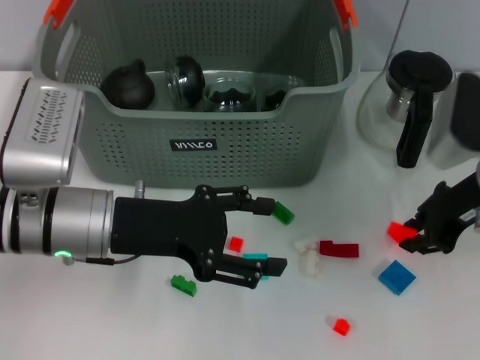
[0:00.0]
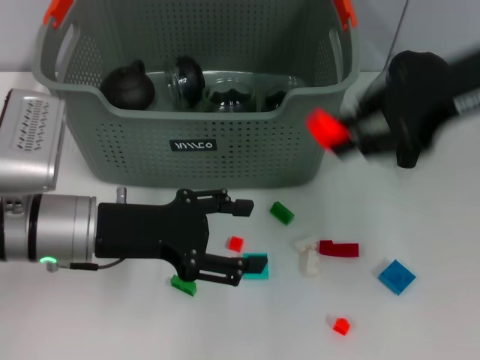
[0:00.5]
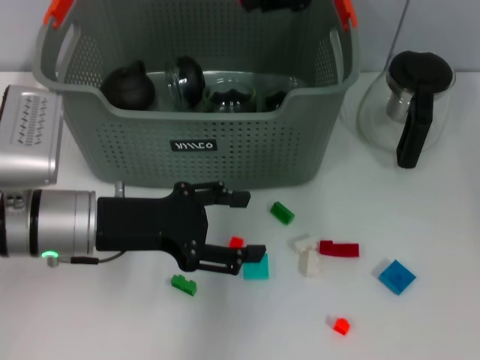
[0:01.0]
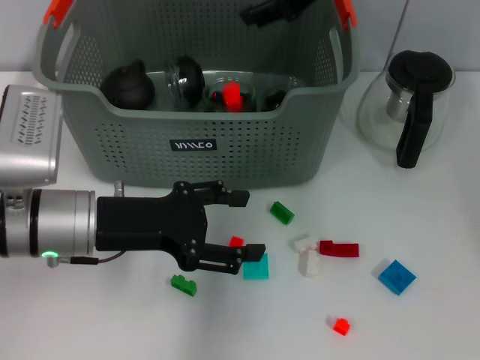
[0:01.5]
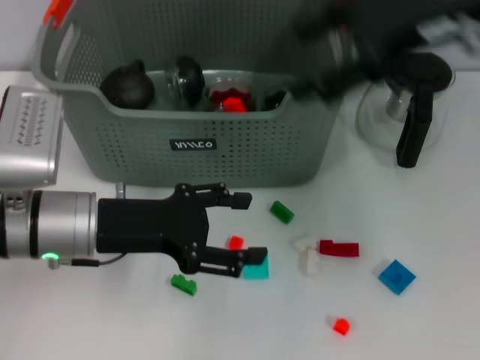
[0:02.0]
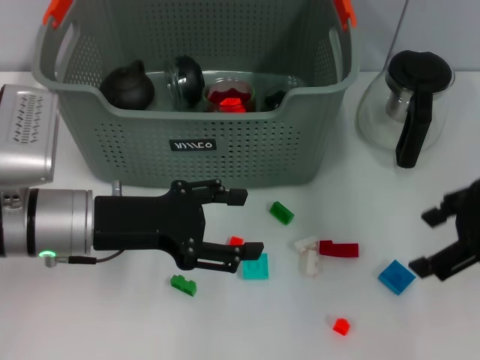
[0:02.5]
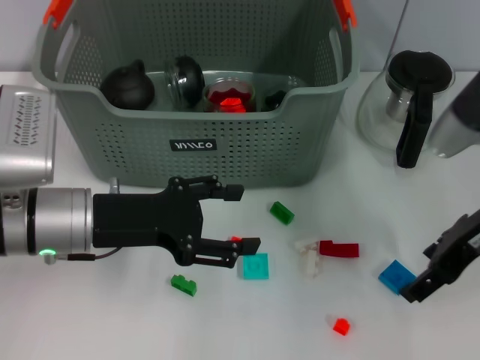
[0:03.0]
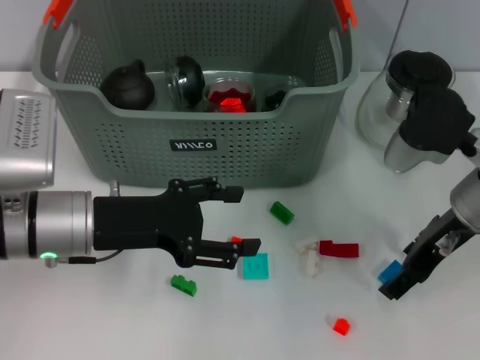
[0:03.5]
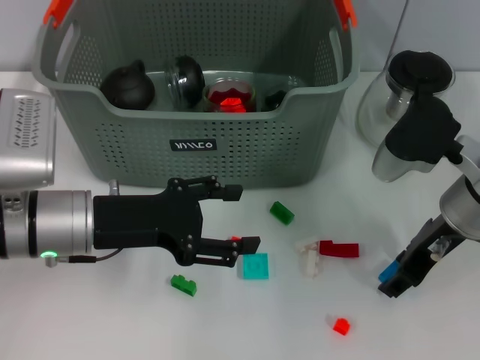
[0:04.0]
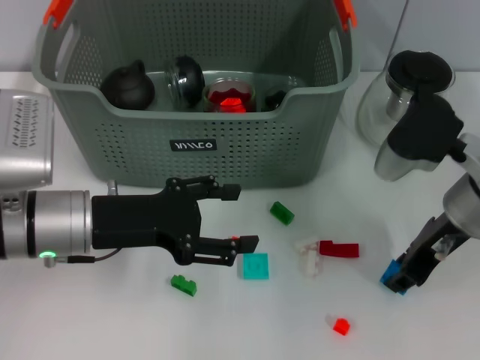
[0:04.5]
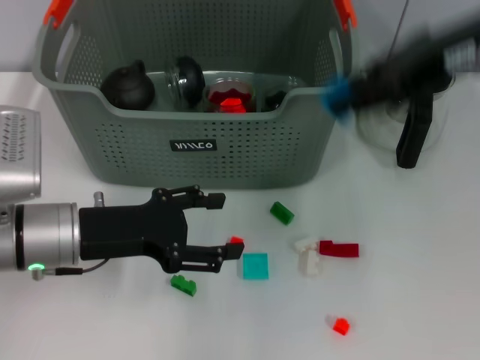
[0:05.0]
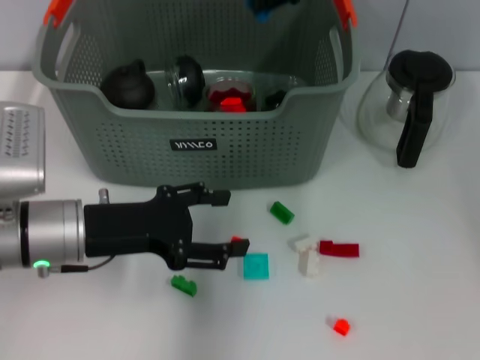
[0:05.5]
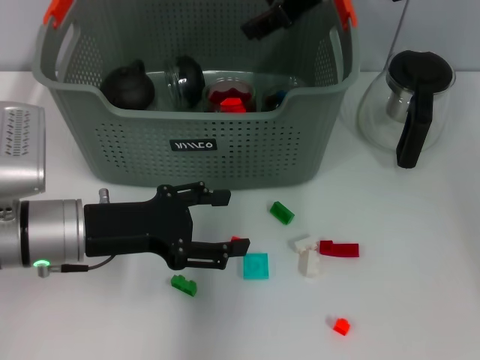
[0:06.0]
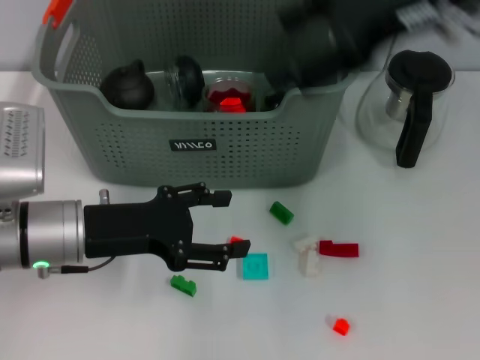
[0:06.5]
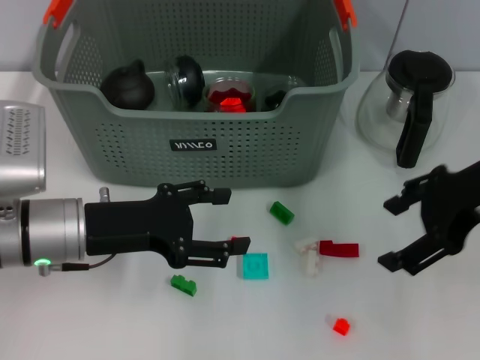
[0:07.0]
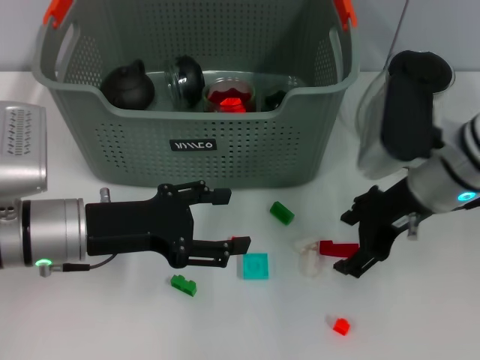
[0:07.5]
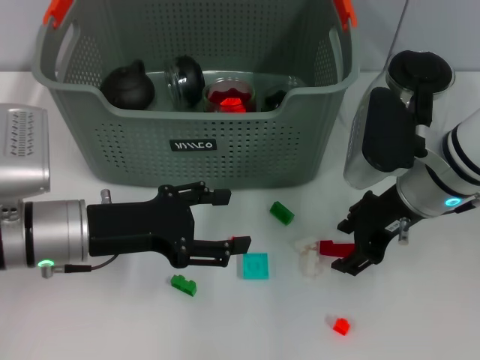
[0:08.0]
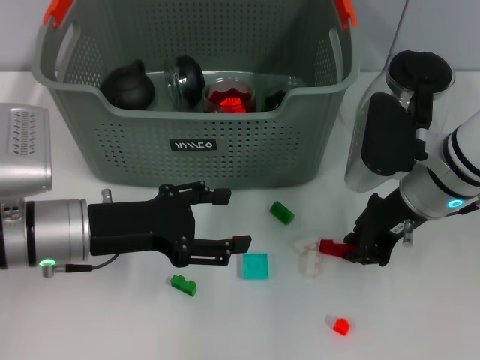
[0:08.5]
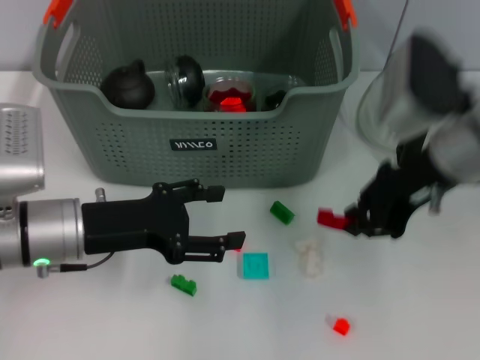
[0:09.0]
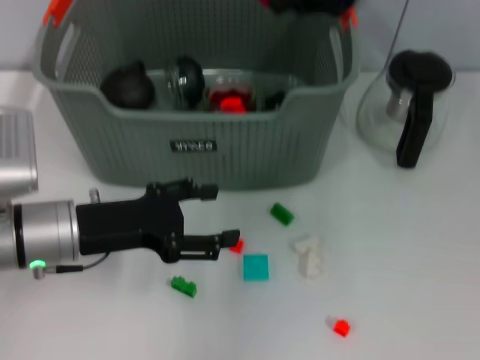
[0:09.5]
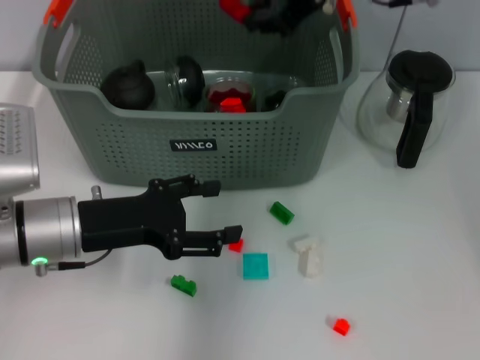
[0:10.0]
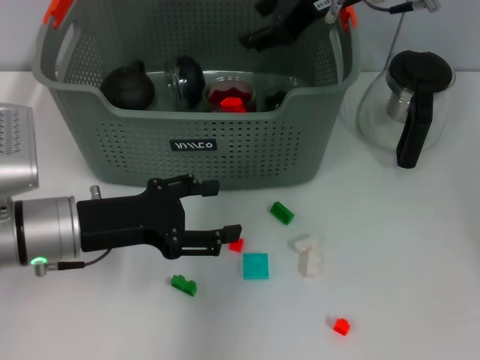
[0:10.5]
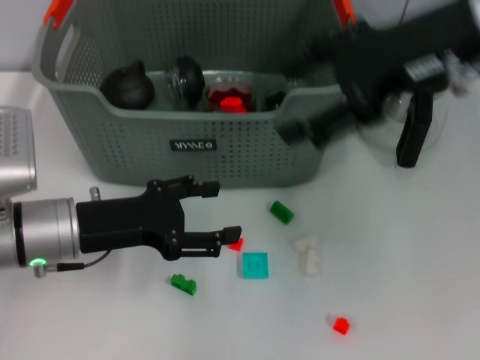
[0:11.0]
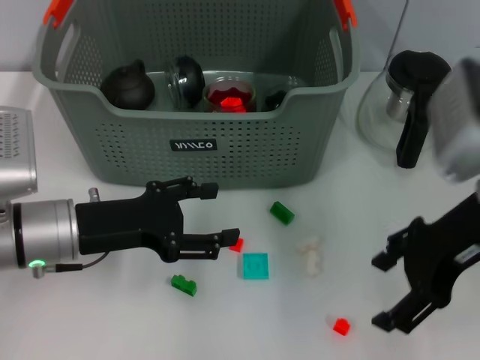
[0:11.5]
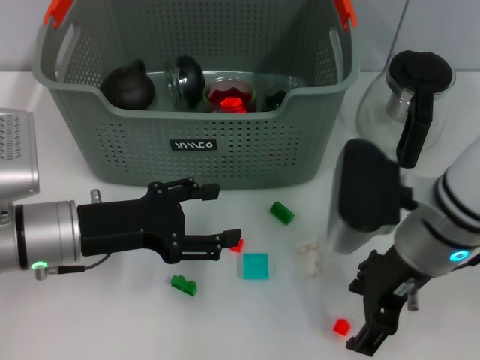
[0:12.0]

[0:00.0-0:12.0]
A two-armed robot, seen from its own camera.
Task of the whole recording: pick up the teacup on the table and place it into the storage bin, pick up the block on the table and place it into the storage bin.
Step, 0:00.0 to 0:01.0: Place the orange block in the storage box with right gripper.
Step, 0:02.0 to 0:04.0: Grasp the dark blue block with right gripper.
Step, 0:04.5 to 0:06.0: Place the dark blue block in the storage box with right gripper.
Step, 0:06.5 to 0:08.5: Grasp the red block with right gripper.
Step, 0:09.0 to 0:10.5: Place the red block in the storage box with right gripper.
0:00.0 to 0:02.0: The right gripper is displaced upward by some 15 cm, and opens.
0:02.0 to 0:04.0: The right gripper moves downward, about 15 cm.
0:04.0 to 0:06.0: The right gripper shifts approximately 20 cm upward, forward and to the left.
0:06.0 to 0:08.0: The right gripper moves downward and backward, some 20 cm, and opens.
0:08.0 to 0:10.0: The right gripper travels upward and forward by approximately 20 cm, and closes.
0:10.0 to 0:12.0: The right gripper goes about 20 cm backward and downward, and opens up.

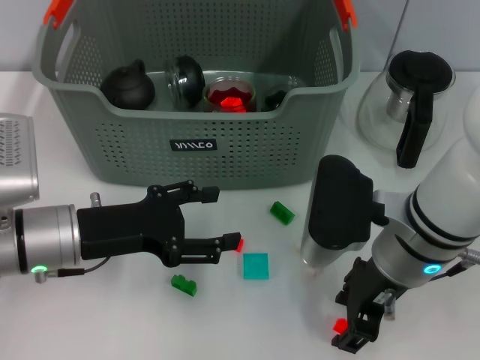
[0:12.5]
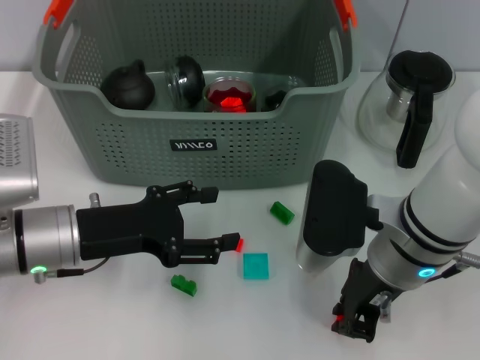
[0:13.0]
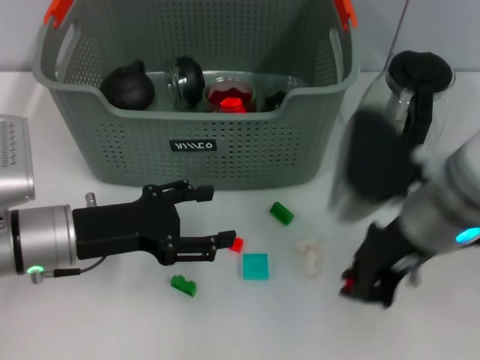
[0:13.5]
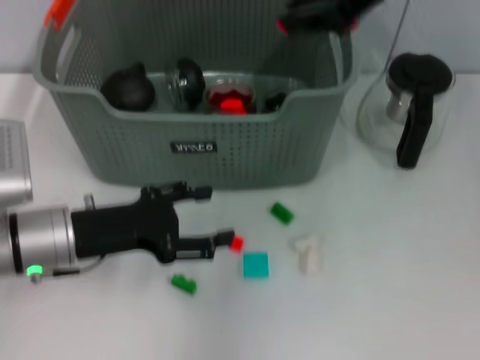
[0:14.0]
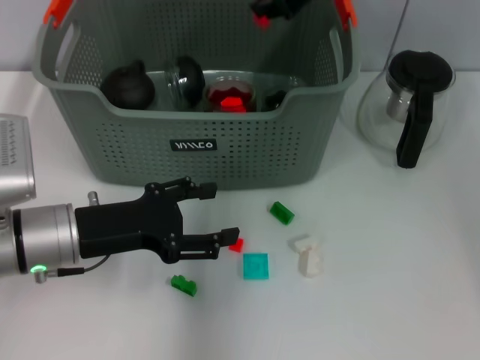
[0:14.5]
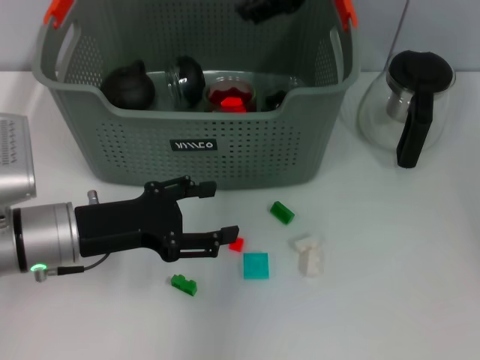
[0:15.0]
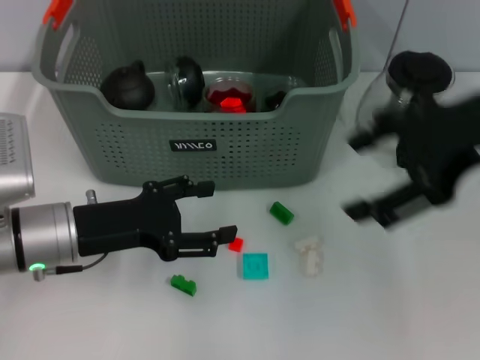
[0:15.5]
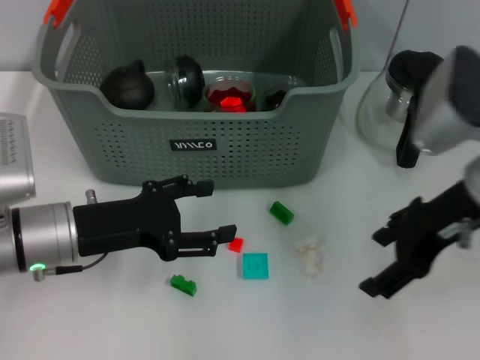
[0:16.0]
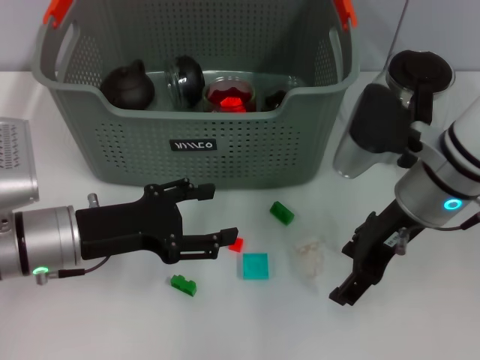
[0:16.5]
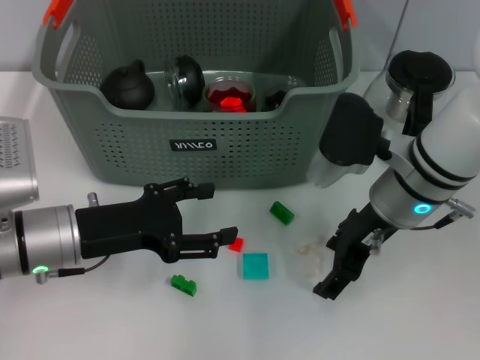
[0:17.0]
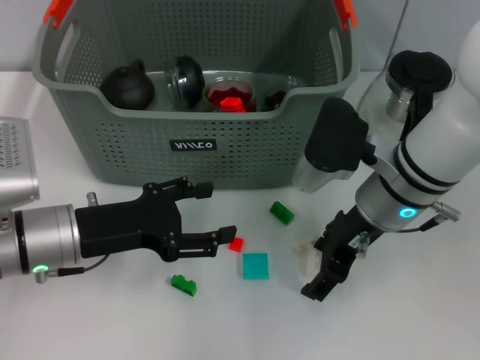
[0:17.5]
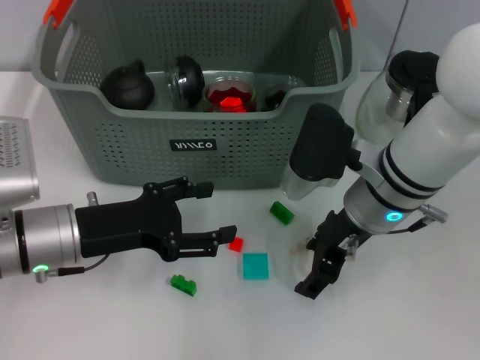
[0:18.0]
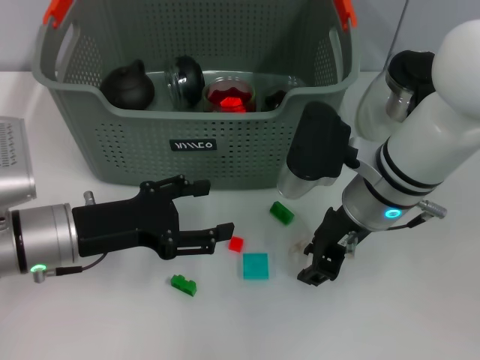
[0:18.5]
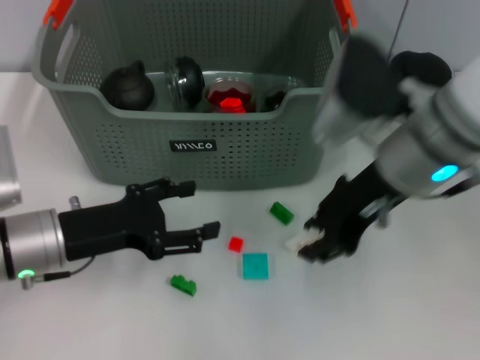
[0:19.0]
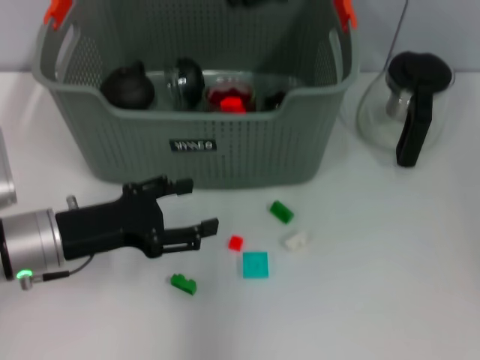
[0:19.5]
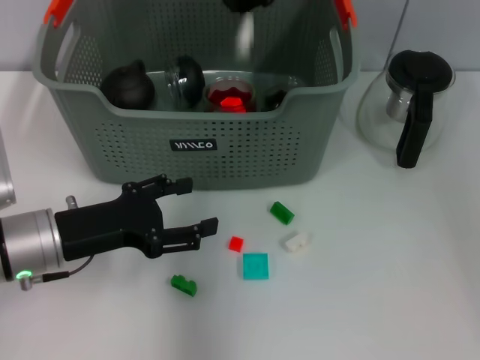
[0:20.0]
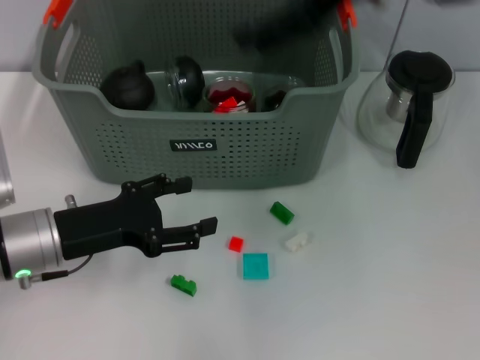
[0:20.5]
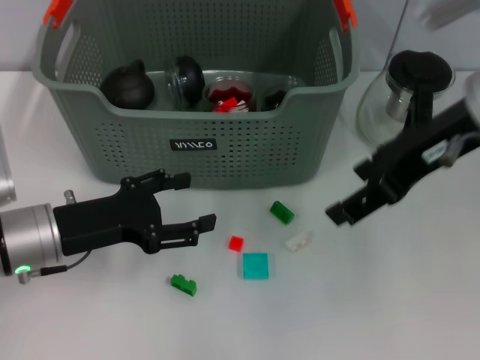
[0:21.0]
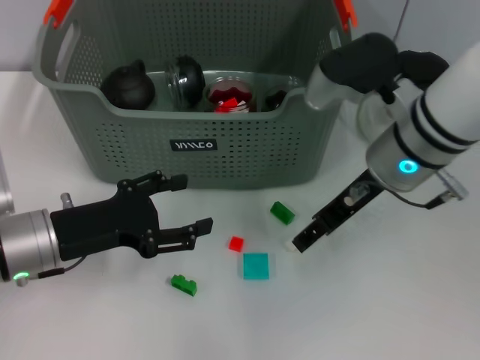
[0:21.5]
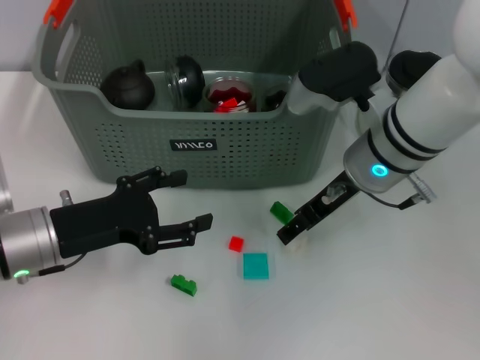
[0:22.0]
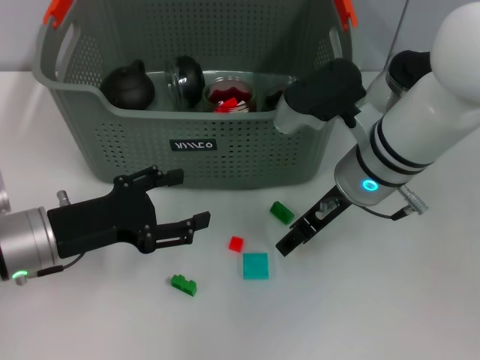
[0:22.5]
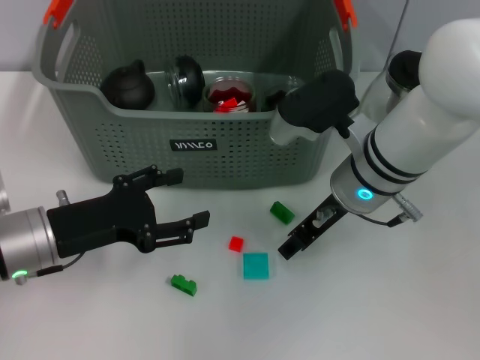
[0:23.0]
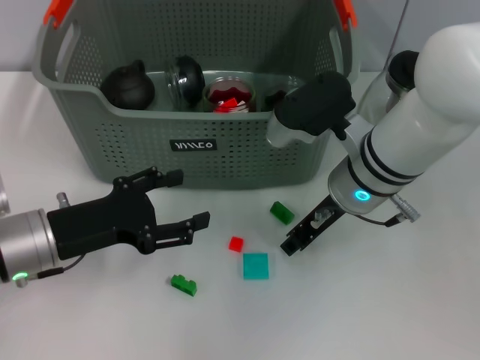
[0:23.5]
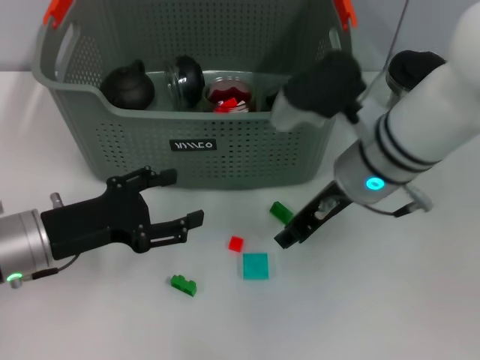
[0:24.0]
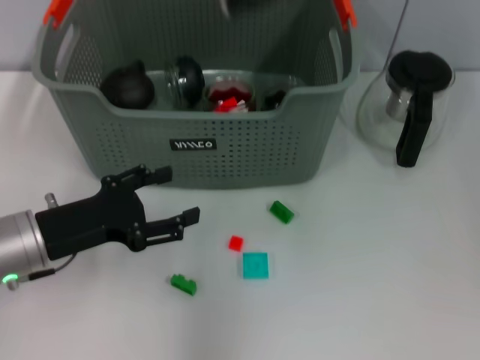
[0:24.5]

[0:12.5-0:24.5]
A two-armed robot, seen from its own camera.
Task of the whole recording: pick up the teacup on the table and place it into the storage bin, pick up the block on the table and place it into the storage bin.
Step, 0:13.5 to 0:15.0: Place the orange block in the storage box with right gripper.
Step, 0:15.5 to 0:18.0: Grasp the white block with right gripper.
Step, 0:19.0 to 0:20.0: Place the white block in the storage box with right gripper.
Step, 0:21.0 to 0:23.5: Grasp the white block with right gripper.
0:12.5 to 0:14.5: The right gripper heads forward and upward, covering some 25 cm, and closes its fingers.
0:14.5 to 0:16.5: The right gripper shifts some 20 cm downward and backward, and opens its fingers.
0:16.5 to 0:18.5: The right gripper changes place by approximately 5 cm, and closes up.
0:18.5 to 0:20.5: The right gripper is displaced upward by approximately 20 cm, and opens.
0:20.5 to 0:22.5: The right gripper goes approximately 20 cm downward.
0:22.5 to 0:24.5: The right gripper is displaced upward by about 25 cm, and closes up.

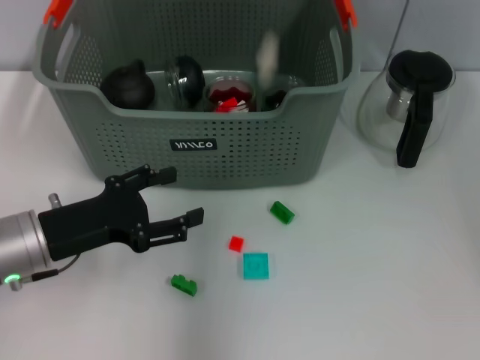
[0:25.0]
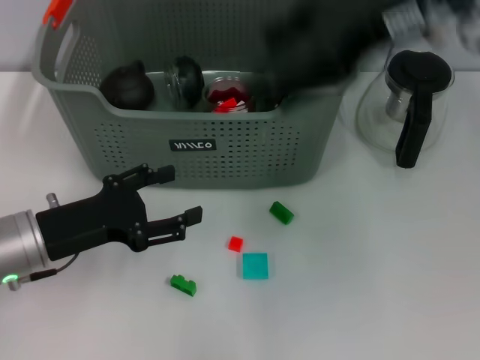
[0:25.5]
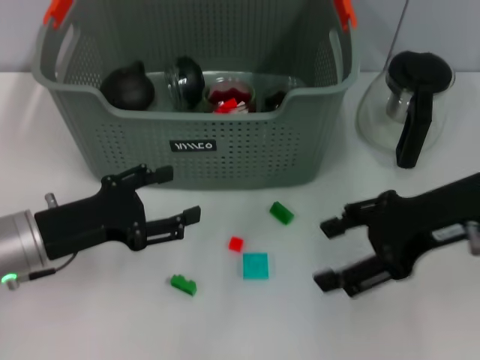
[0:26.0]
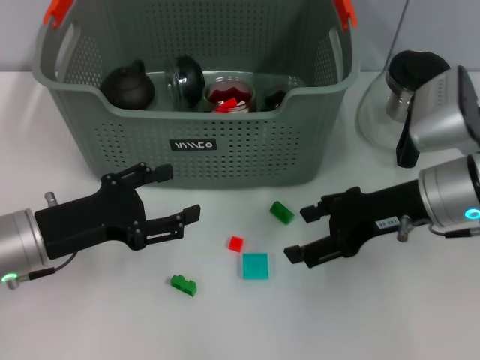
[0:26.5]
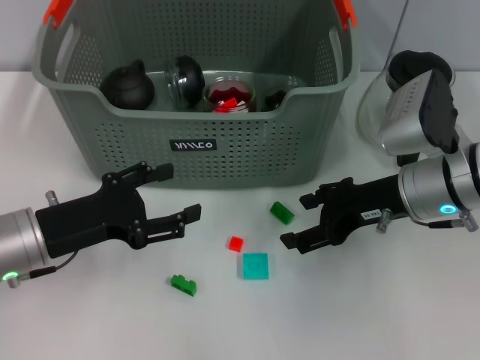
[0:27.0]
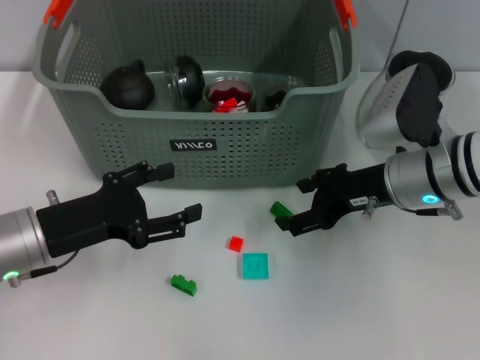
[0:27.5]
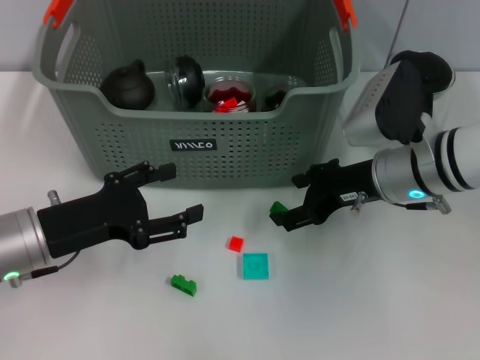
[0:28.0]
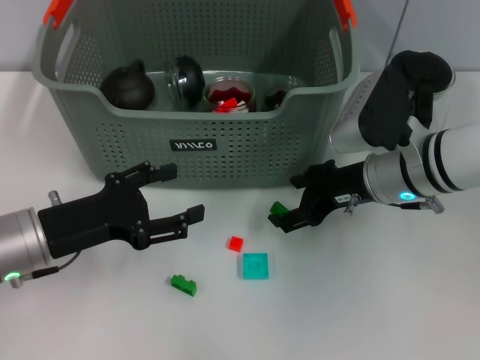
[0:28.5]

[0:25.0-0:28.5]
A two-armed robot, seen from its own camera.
Task of the whole recording: pick up the teacup on the table and place it into the storage bin, pick up the block on the table and place it into the storage bin.
0:25.0 to 0:27.0: The right gripper travels downward by about 25 cm, and opens its fingers.
0:27.0 to 0:28.5: There are only small adjustments of the grippers.
